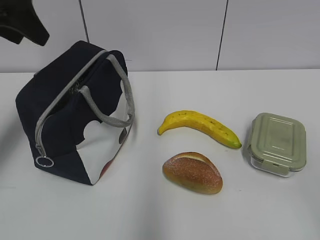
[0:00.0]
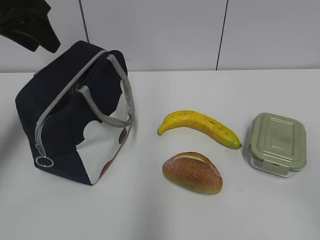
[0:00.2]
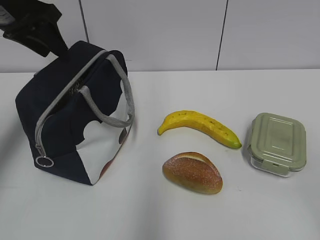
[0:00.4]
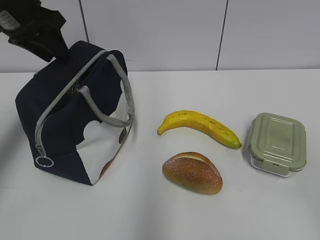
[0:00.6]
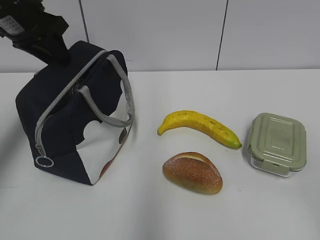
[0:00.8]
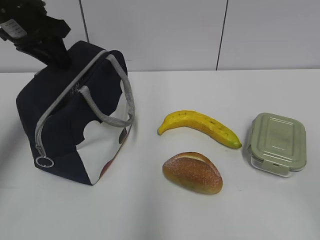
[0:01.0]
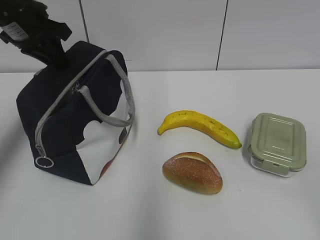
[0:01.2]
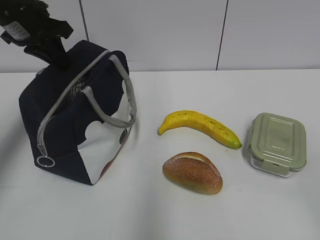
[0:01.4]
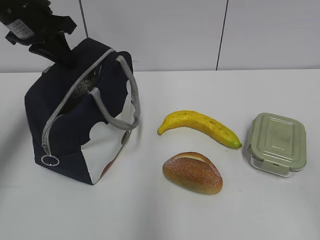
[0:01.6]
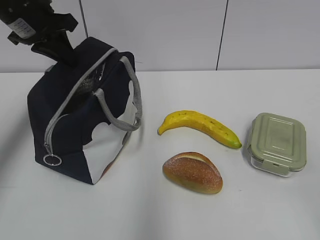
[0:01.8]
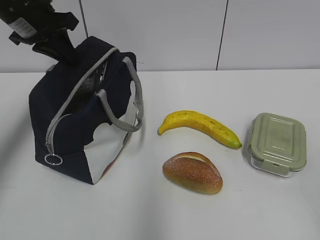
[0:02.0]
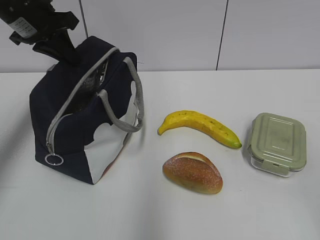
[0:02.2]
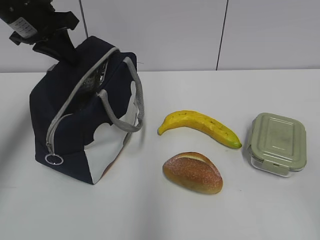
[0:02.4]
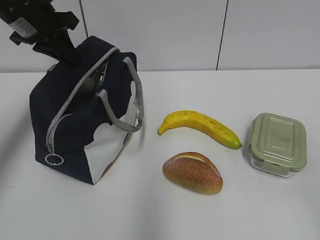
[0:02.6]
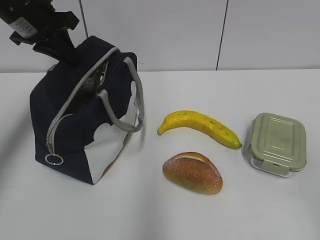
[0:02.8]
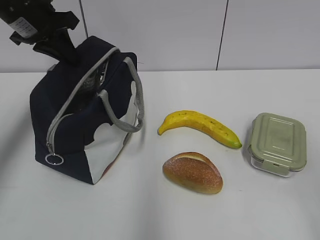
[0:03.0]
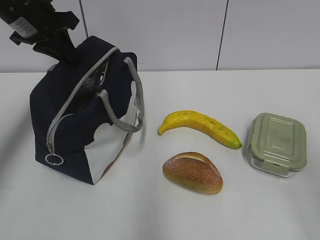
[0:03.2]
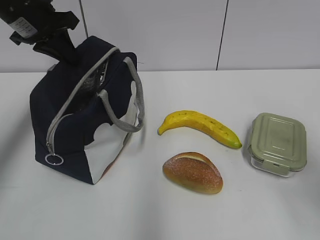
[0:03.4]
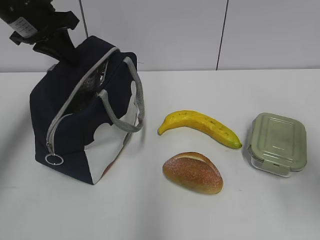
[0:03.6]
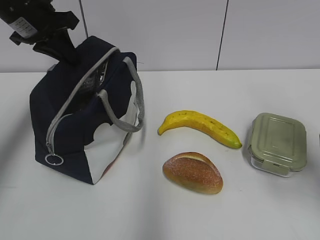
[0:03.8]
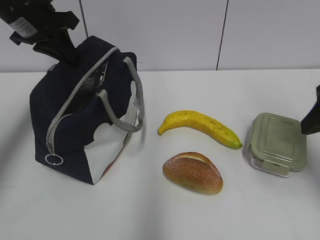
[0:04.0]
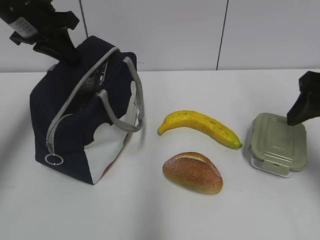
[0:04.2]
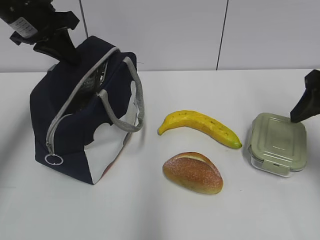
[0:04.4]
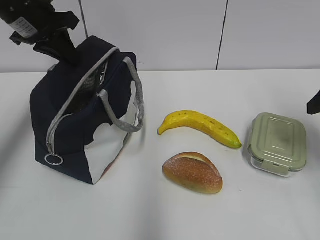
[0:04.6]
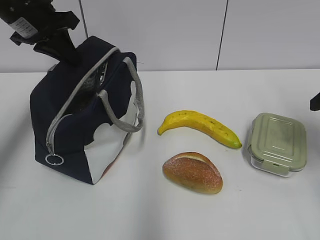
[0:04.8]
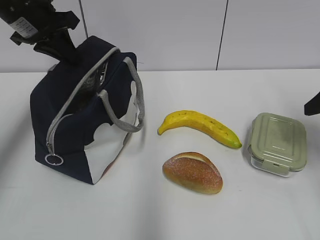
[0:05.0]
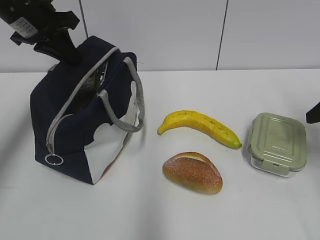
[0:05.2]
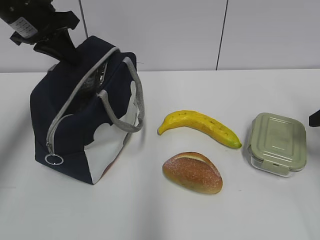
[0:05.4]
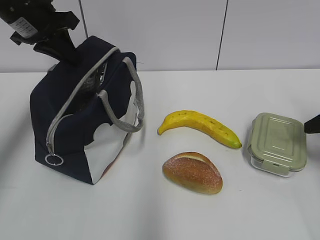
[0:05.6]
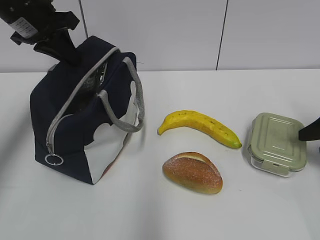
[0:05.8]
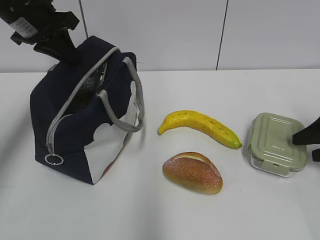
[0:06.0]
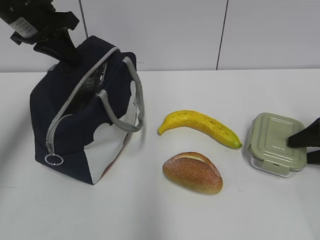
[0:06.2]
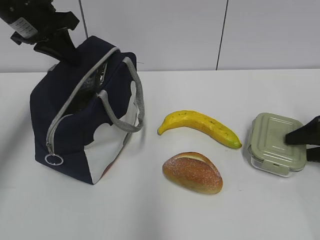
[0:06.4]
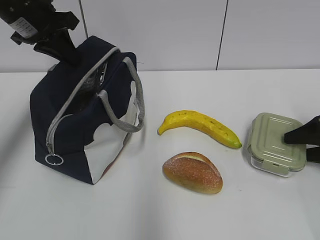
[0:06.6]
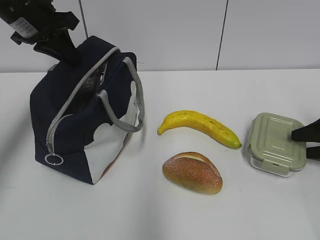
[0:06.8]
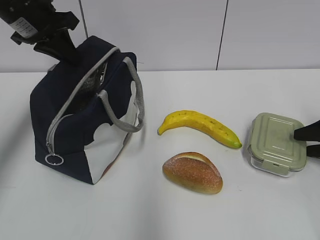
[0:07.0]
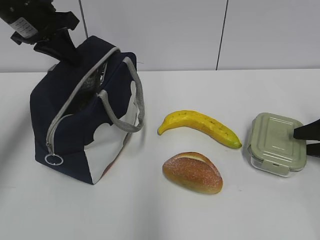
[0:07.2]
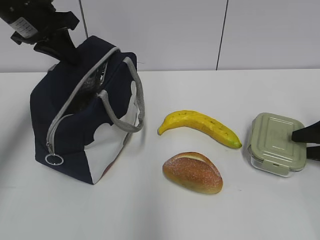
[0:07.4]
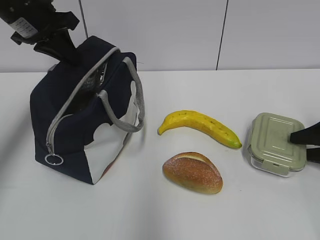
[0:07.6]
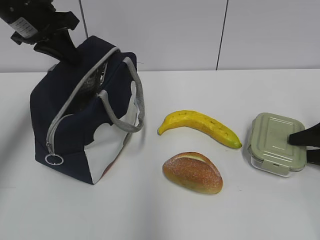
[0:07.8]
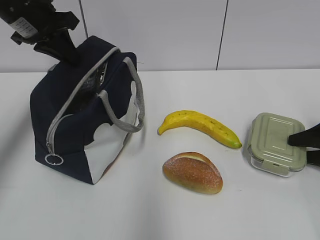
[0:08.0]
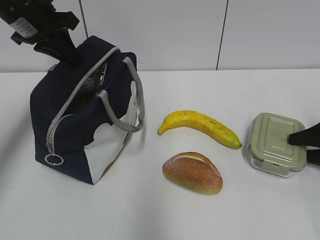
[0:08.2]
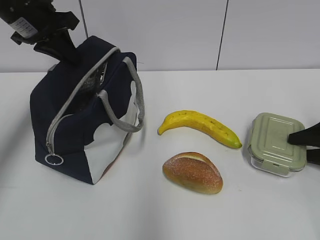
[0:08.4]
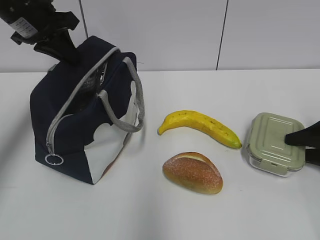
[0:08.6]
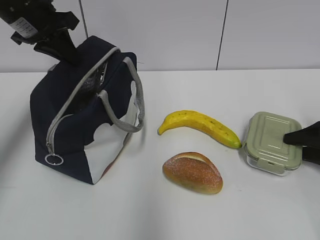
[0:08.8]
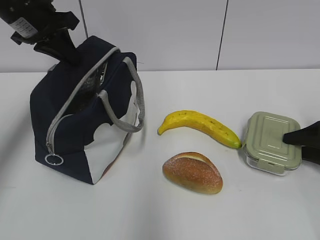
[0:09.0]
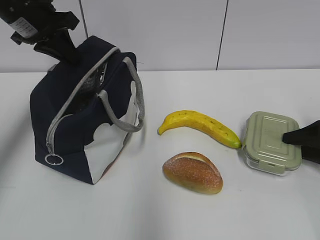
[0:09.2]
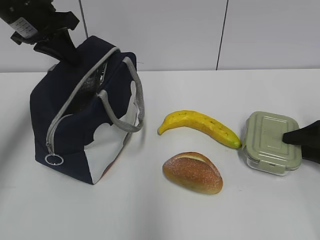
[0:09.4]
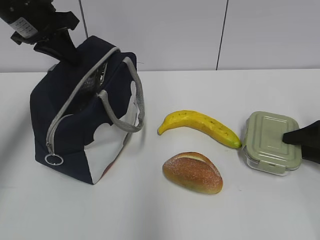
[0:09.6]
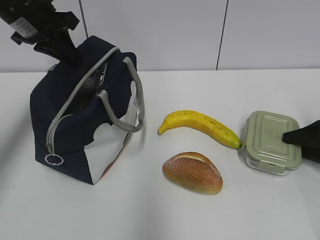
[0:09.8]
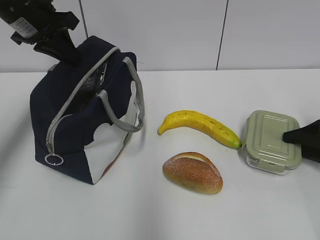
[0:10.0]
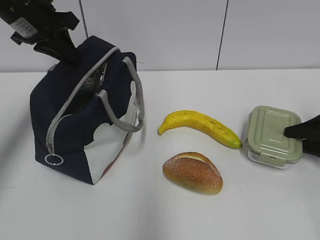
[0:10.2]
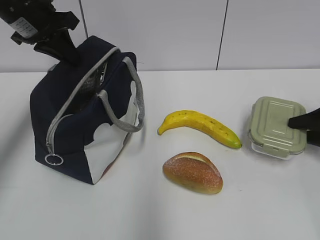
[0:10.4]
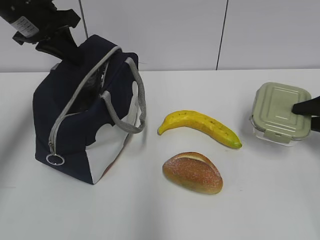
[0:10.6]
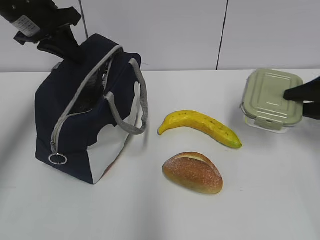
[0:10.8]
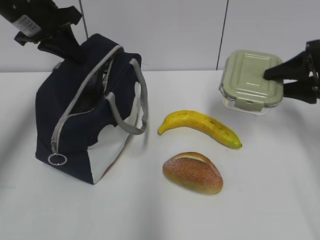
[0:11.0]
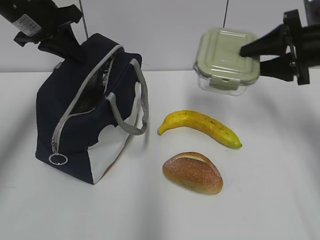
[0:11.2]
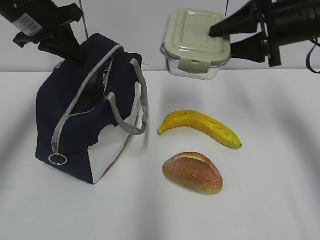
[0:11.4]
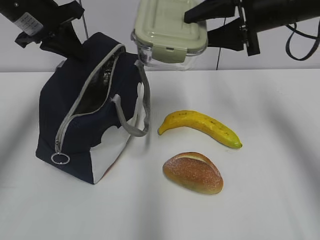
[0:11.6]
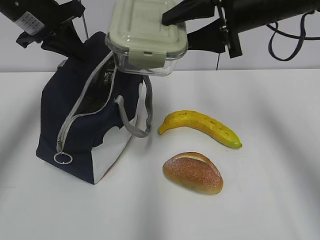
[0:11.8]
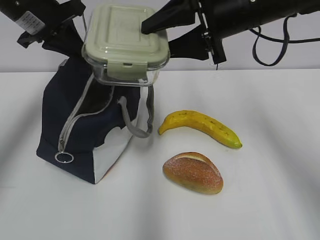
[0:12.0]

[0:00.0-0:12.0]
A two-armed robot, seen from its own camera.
Step, 0:00.0 to 0:09.0: Grab the lunch box with your right hand.
0:00.0 to 0:01.6: The left gripper travels forward and downward by some 10 cm, and closes up.
0:01.6 to 0:03.0: The grippers make only small movements.
0:03.0 to 0:04.4: The right gripper travels forward by about 25 cm.
0:04.4 to 0:06.0: The right gripper goes roughly 15 cm downward and to the right.
0:07.6 to 0:10.4: The grippers stay close to where they were, moving slightly.
0:10.4 to 0:12.0: The right gripper goes some 35 cm to the left and upward.

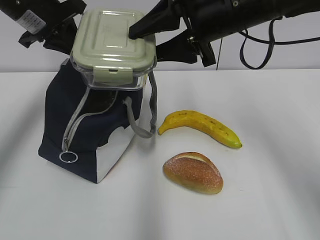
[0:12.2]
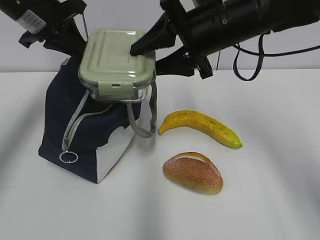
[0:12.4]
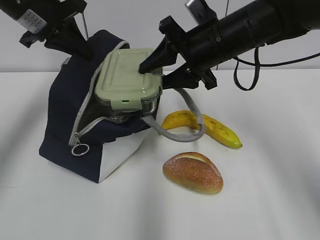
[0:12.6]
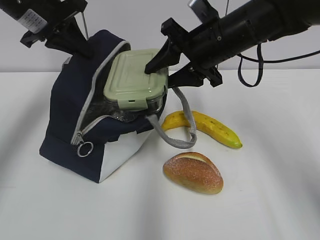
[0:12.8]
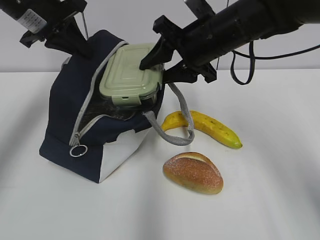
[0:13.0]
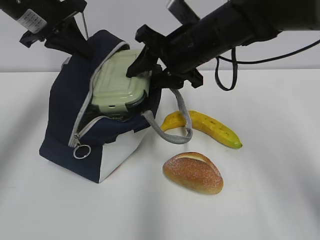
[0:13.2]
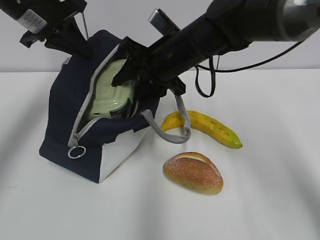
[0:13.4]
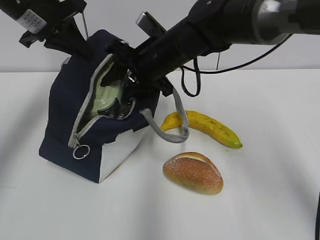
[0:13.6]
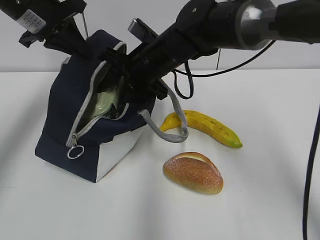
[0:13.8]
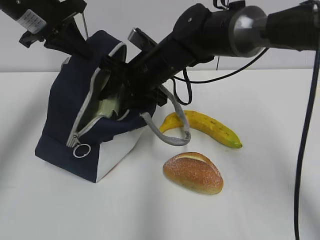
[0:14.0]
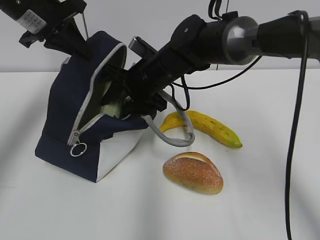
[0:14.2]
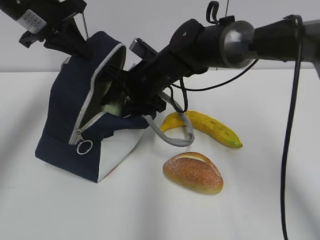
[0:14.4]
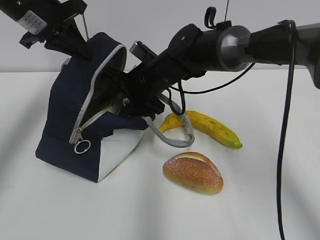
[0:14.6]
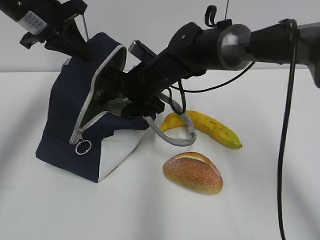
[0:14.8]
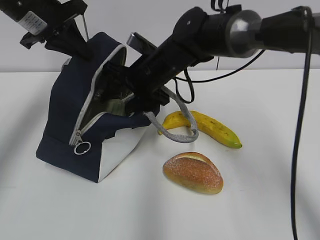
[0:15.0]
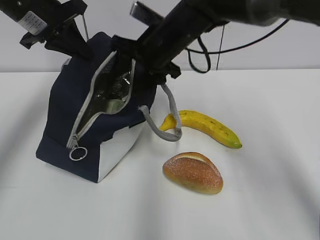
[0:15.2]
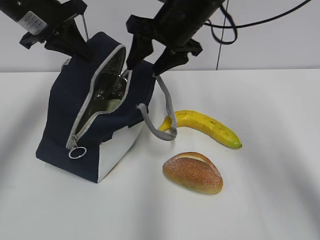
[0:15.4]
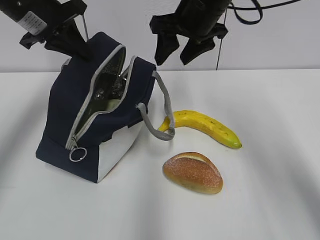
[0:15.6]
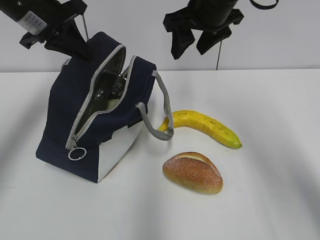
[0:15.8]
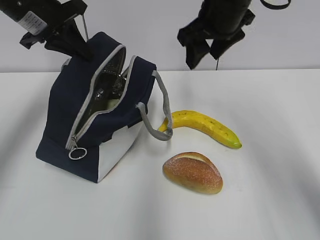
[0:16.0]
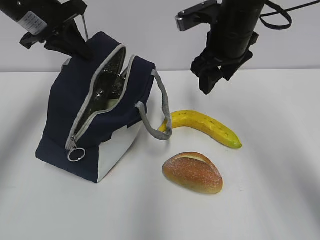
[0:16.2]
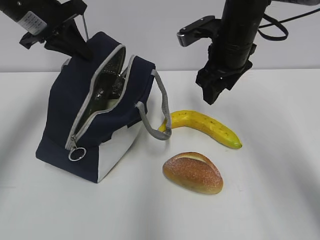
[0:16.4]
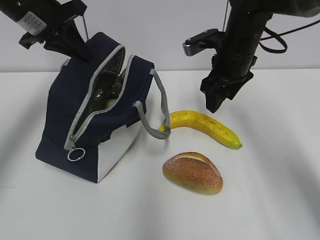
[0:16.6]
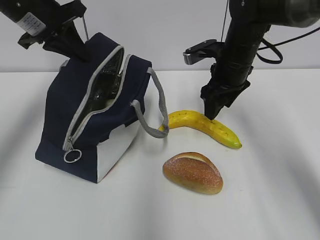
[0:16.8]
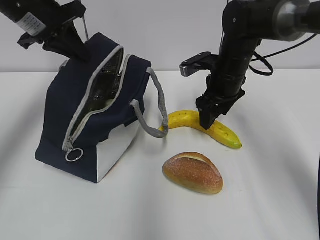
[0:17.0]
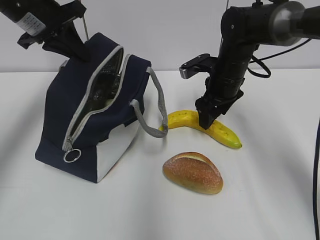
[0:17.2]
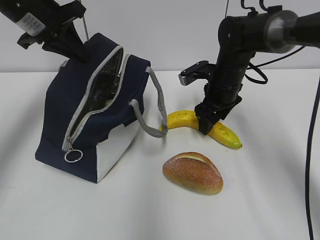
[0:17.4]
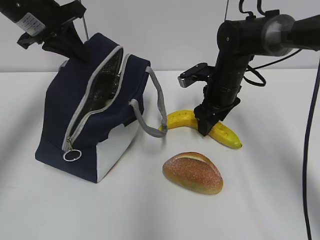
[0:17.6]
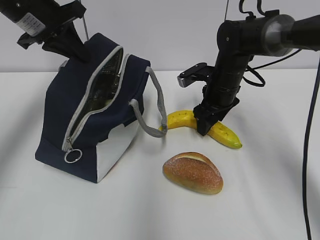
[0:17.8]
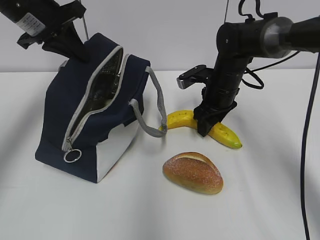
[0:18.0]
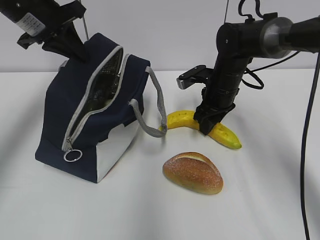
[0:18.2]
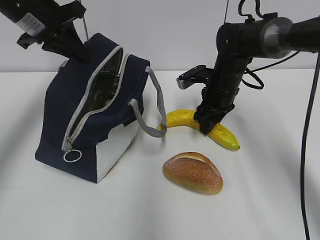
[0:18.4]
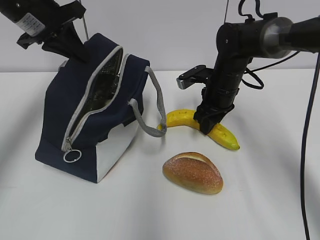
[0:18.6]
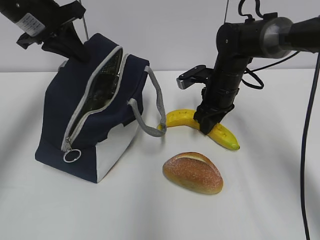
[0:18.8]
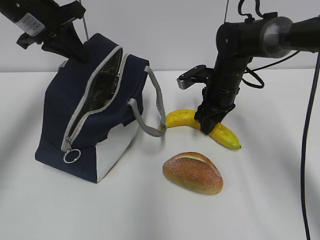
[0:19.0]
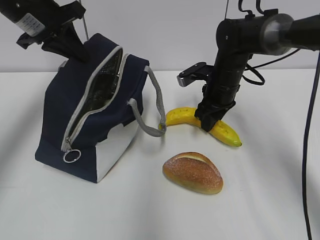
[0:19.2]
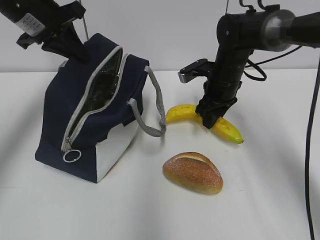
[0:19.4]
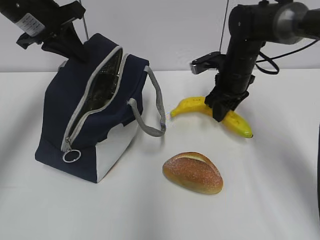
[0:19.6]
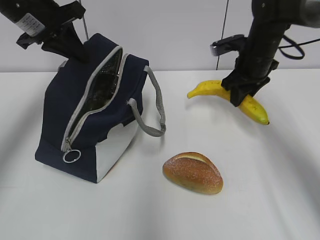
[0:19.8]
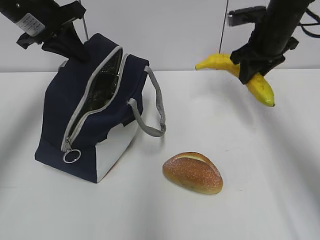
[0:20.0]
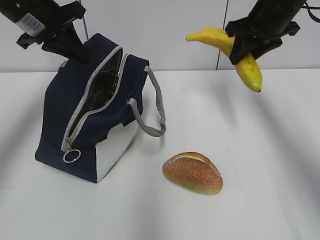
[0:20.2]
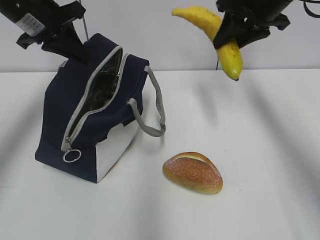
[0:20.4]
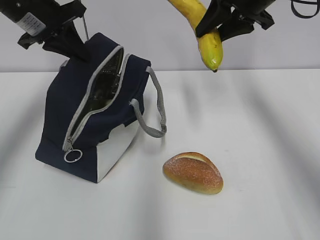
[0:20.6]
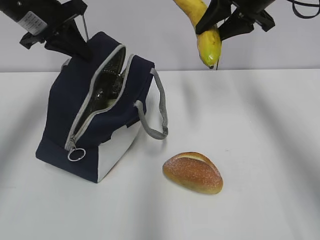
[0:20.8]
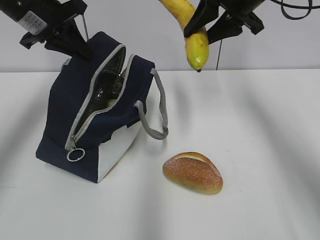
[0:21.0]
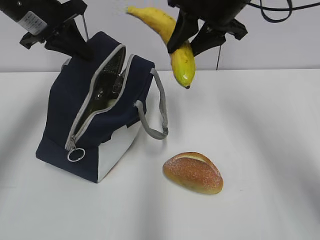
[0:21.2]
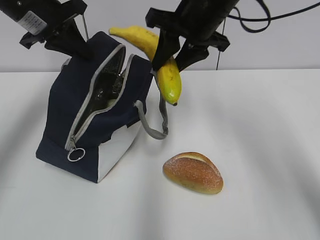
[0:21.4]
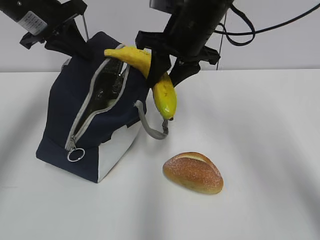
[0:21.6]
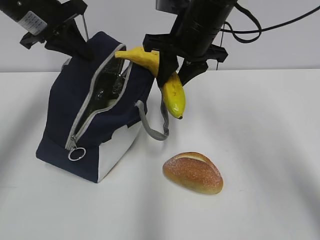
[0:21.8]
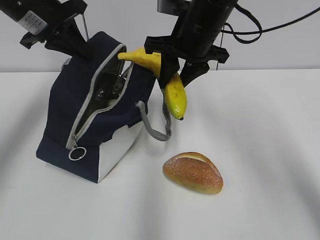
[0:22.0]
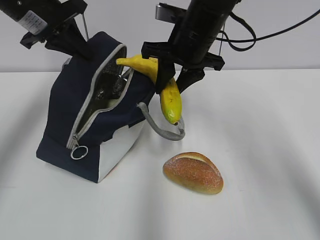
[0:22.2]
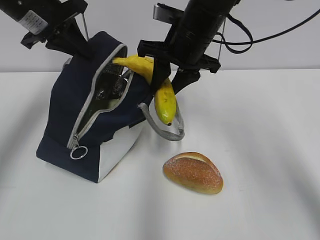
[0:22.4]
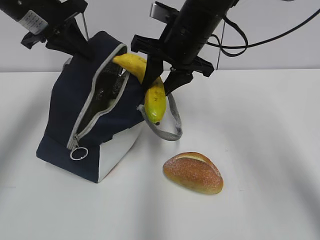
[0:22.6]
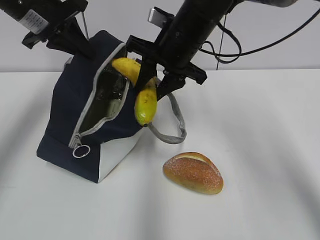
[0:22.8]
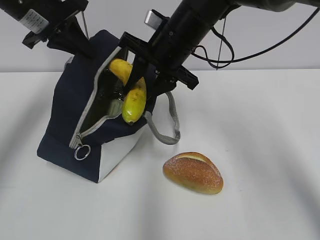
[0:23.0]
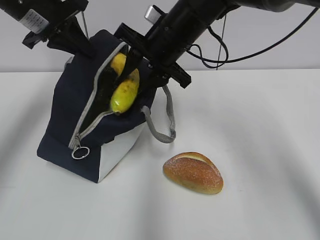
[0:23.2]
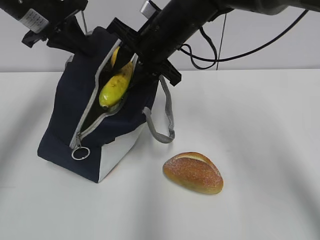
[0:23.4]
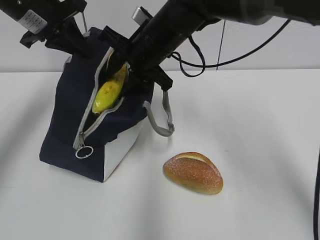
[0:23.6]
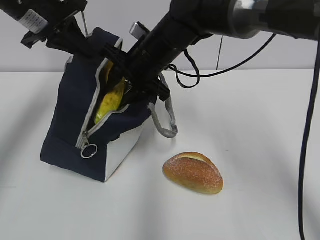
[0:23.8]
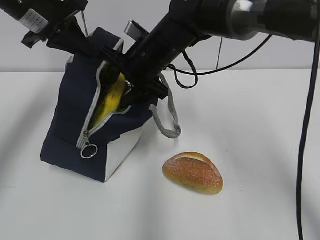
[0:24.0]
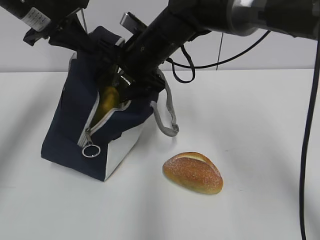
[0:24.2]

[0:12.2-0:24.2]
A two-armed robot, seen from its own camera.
Step, 0:12.6 to 0:14.6: Place it into the bag with your right hand.
Step, 0:15.0 to 0:18.4: Grab the banana with your right hand.
0:12.2 to 0:13.8: The right gripper goes roughly 15 cm downward, to the left and forward.
0:13.8 to 0:15.2: The grippers make only small movements.
0:15.2 to 0:16.6: The right gripper heads to the right, covering roughly 10 cm.
0:16.6 to 0:18.2: The right gripper shifts some 10 cm downward.
0:18.2 to 0:19.8: The right gripper heads to the right and upward, covering about 10 cm.
0:19.8 to 0:21.2: The right gripper goes roughly 15 cm upward, to the left and backward.
0:21.2 to 0:22.6: The right gripper is displaced to the left and downward by about 10 cm.
0:22.6 to 0:24.2: The right gripper moves to the left, about 5 cm, and opens up.
